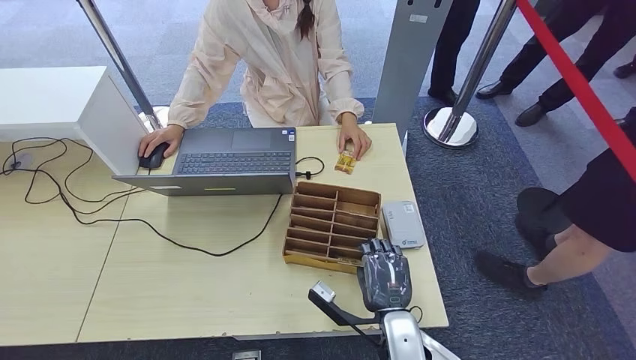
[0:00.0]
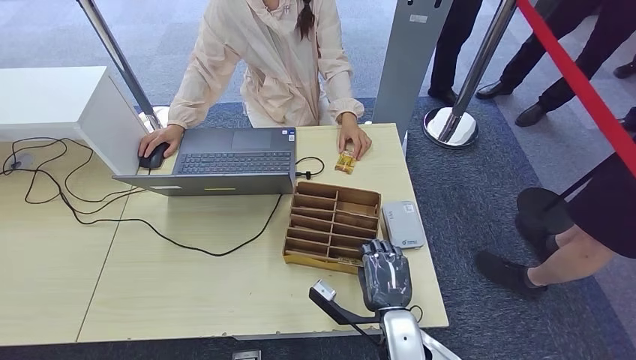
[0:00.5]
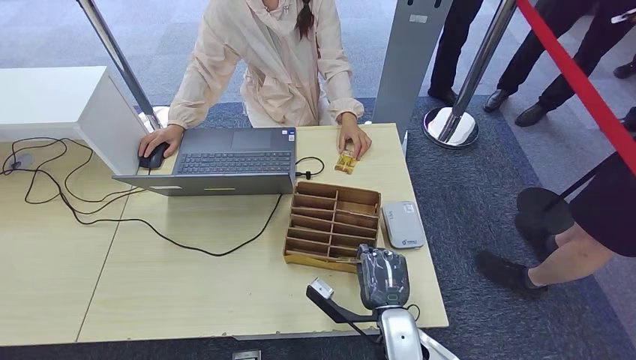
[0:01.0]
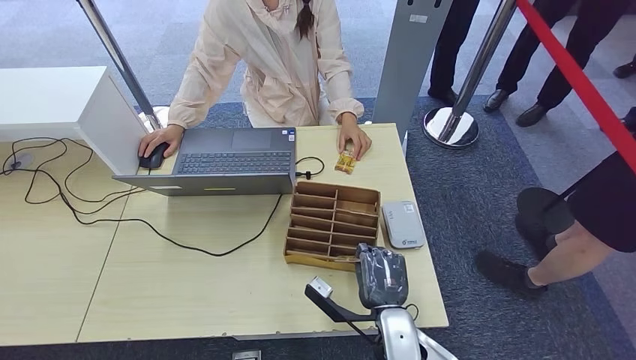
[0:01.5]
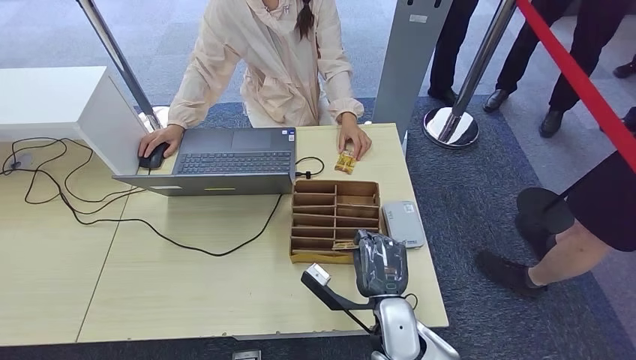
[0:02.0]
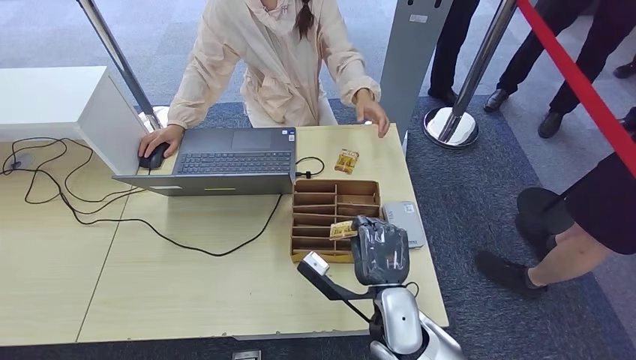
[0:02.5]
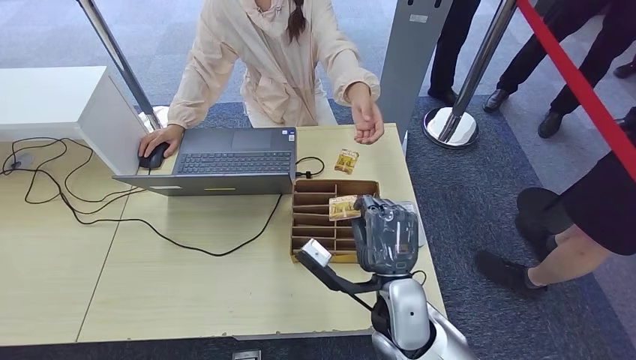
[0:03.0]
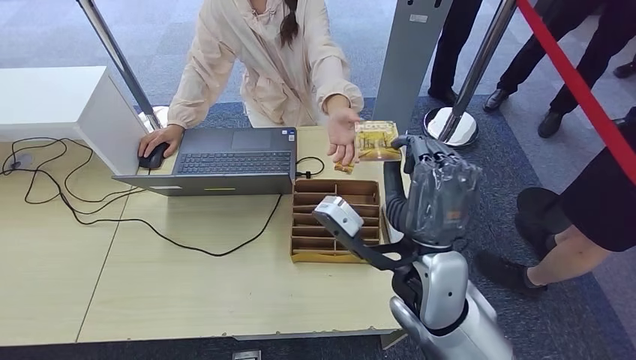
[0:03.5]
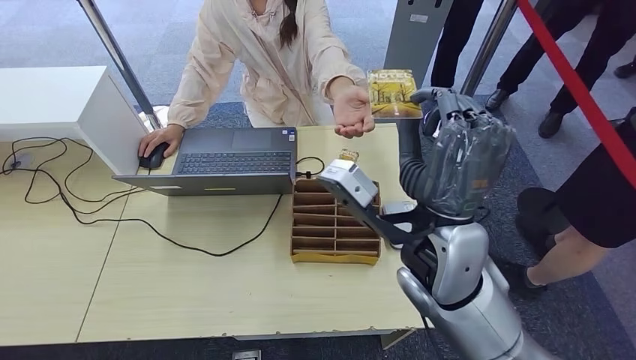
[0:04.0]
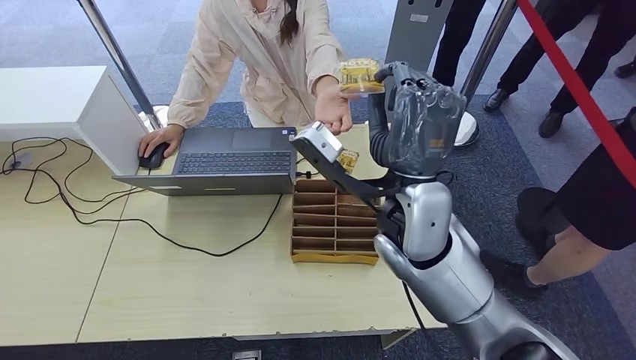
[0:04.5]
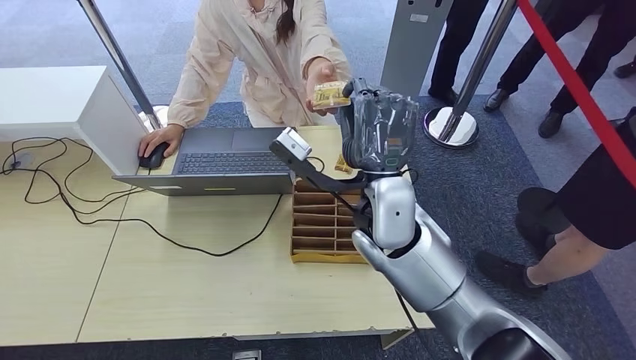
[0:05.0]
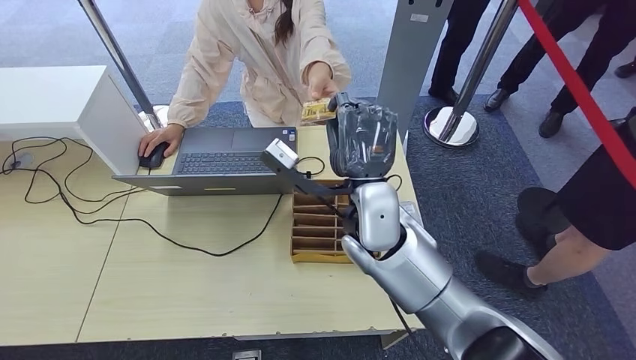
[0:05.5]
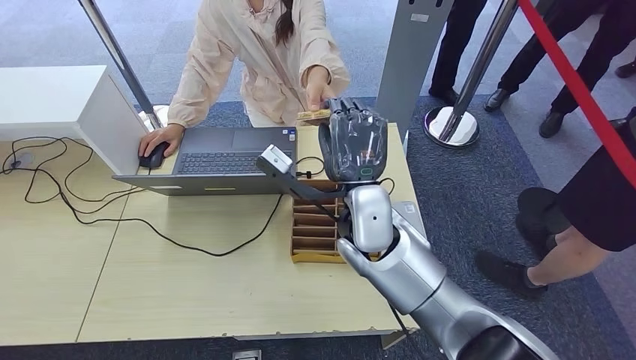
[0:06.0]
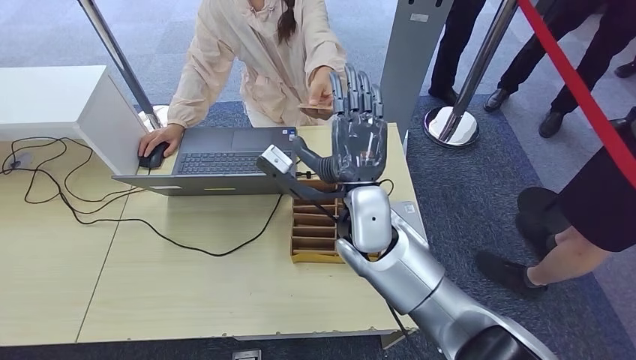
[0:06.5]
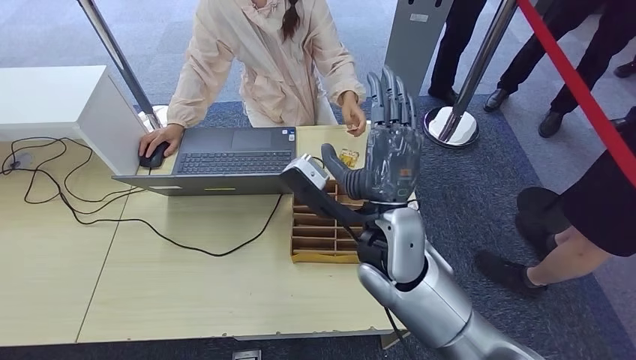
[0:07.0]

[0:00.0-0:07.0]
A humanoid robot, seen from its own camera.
Step, 0:00.0 to 0:03.0: Pick up the room key from the key card box.
Step, 0:03.5 to 0:07.0: Hand the room key to the person.
0:00.0 to 0:02.0: The hands stay close to where they were, moving slightly.
0:02.0 to 0:03.5: The right hand travels upward by roughly 15 cm.
0:03.5 to 0:05.0: The right hand is displaced forward by approximately 10 cm.
0:05.0 to 0:07.0: The hands stay close to where they were, moving slightly.
